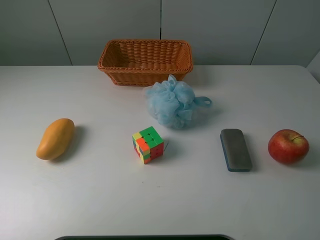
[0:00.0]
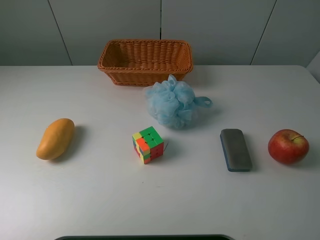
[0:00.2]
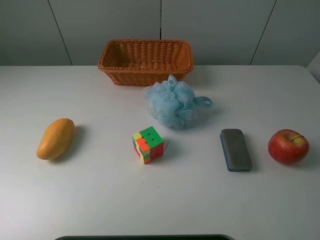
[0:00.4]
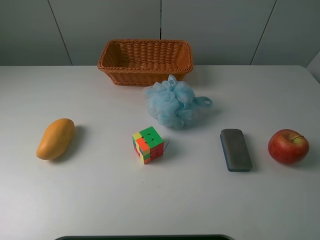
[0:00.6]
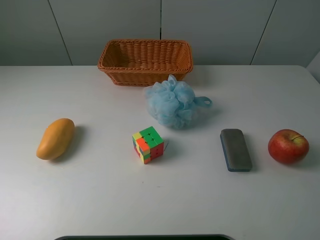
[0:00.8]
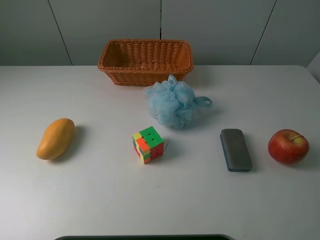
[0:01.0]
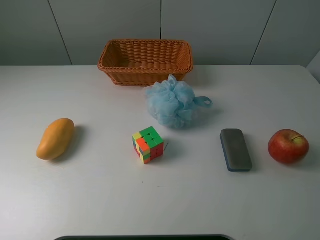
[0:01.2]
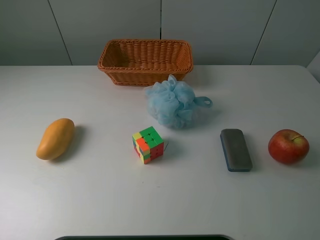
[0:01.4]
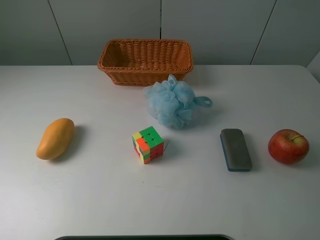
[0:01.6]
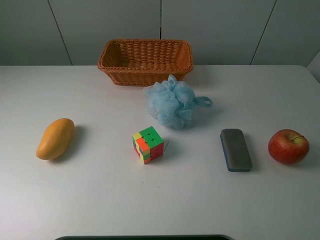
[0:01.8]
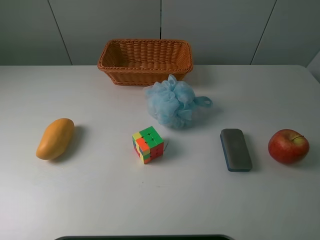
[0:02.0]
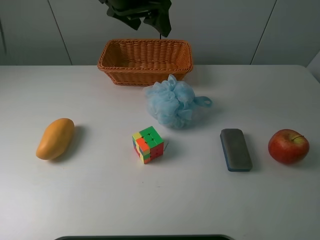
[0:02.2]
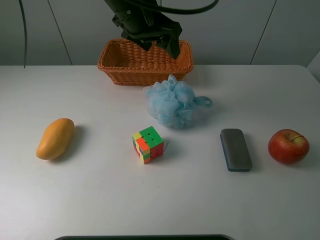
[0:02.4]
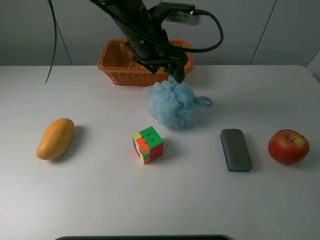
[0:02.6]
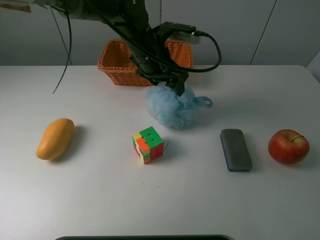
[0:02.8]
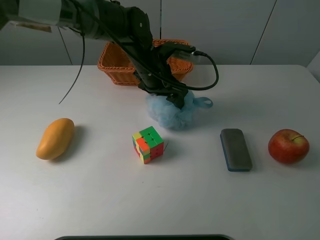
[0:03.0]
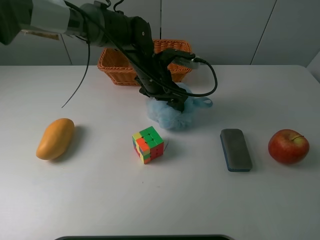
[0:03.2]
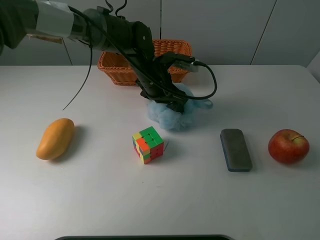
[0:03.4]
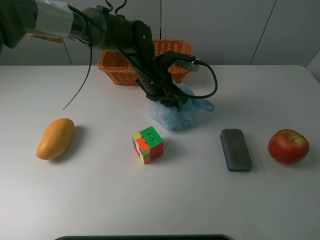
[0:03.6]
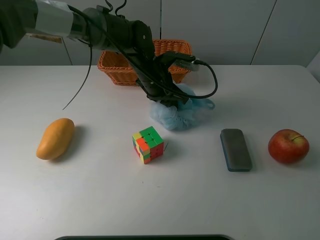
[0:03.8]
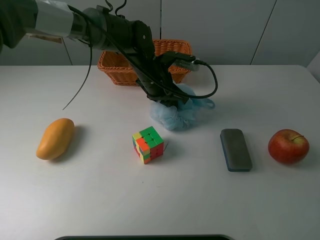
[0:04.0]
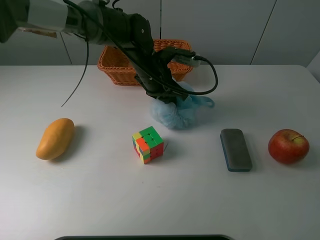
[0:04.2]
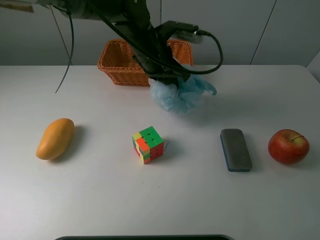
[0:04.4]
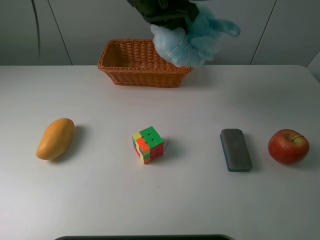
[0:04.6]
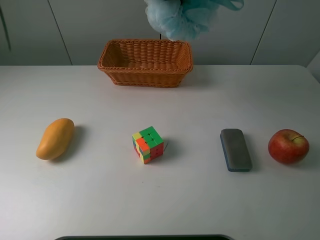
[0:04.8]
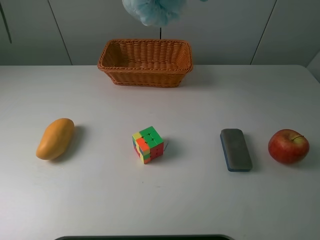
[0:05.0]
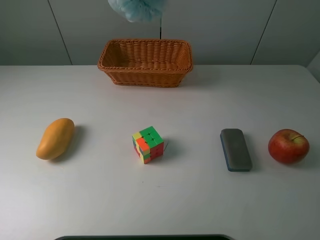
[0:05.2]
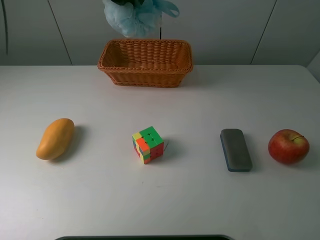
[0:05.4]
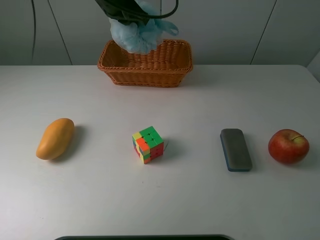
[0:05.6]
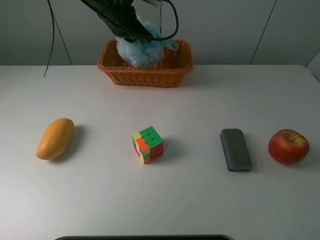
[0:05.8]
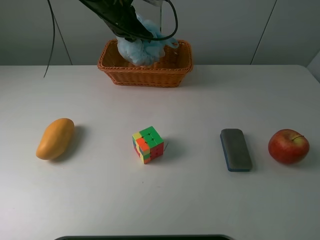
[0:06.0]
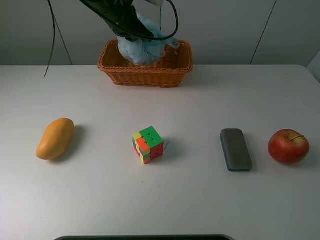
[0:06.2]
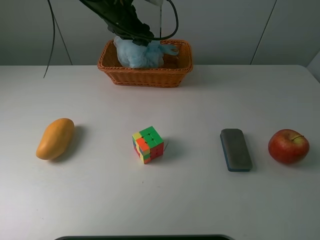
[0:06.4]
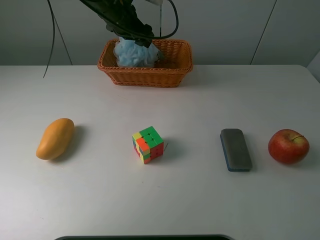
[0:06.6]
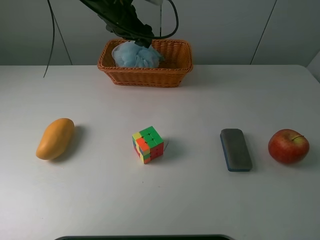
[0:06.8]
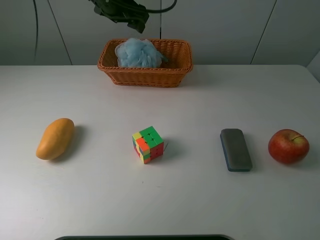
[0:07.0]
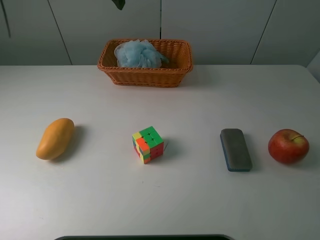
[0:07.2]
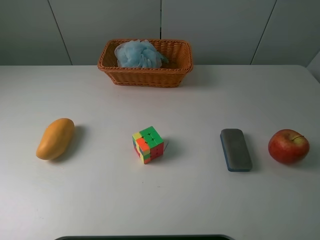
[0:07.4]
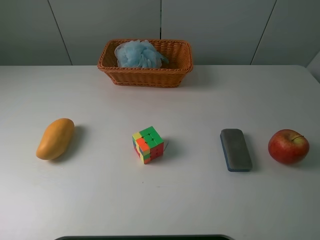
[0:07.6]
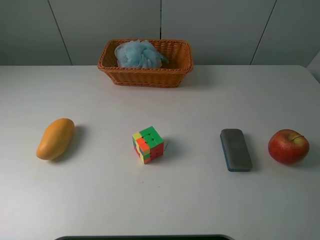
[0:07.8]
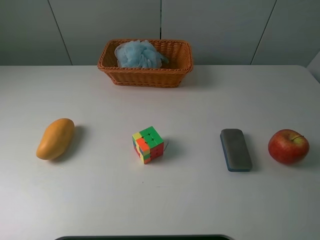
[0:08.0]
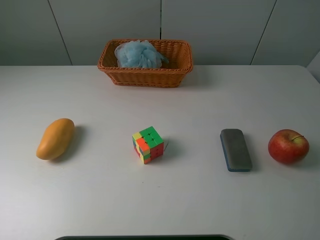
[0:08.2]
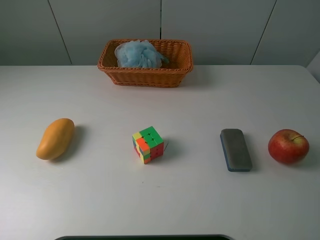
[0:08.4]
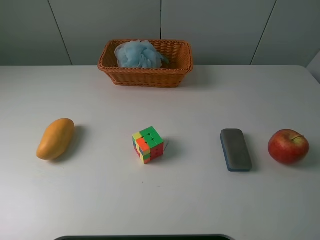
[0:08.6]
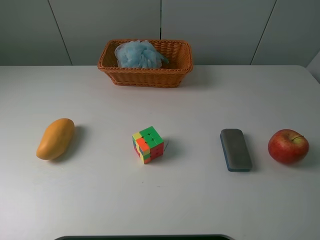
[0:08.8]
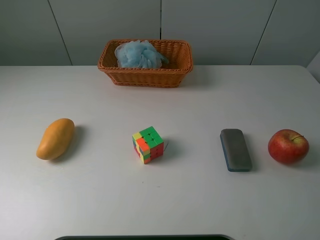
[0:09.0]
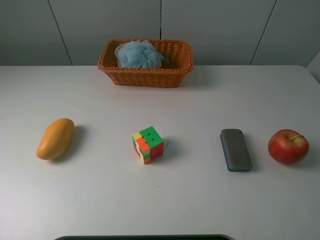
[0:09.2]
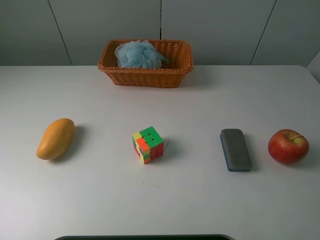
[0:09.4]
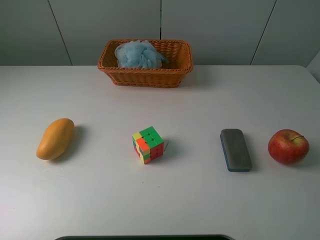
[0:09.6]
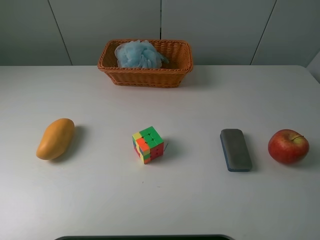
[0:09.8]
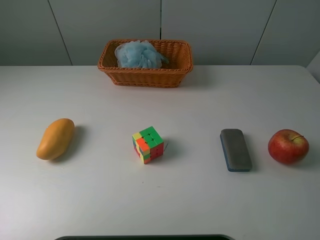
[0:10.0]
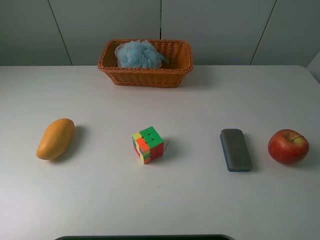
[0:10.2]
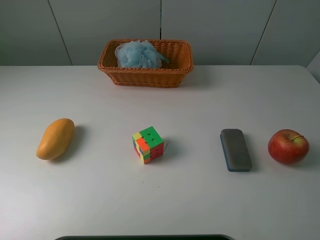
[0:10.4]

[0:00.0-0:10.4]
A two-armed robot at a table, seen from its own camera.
Task of the whole recording: use a picker to grab the item closest to the cube and place it in the basket.
Step, 0:00.0 to 0:03.6: Grasp the Shower puff with the left gripper.
Step, 0:03.8 to 0:06.4: Place the Shower puff into the basket with the left gripper.
0:01.4 to 0:03.0: The left gripper goes roughly 40 cm downward, to the right and forward.
0:03.0 to 0:04.4: The left gripper shifts roughly 10 cm upward, and closes up.
0:04.4 to 0:06.0: The left gripper travels forward and to the left by roughly 10 cm, and moves approximately 15 cm upward and comes back.
0:06.0 to 0:07.4: The left gripper heads upward, backward and to the left, covering roughly 30 cm, and opens its fingers.
